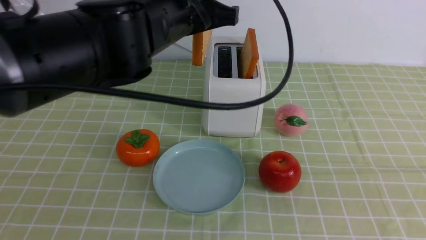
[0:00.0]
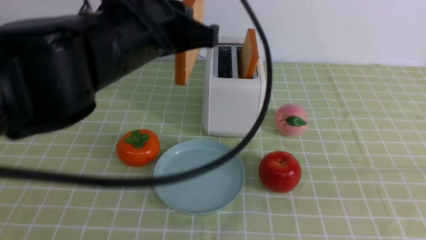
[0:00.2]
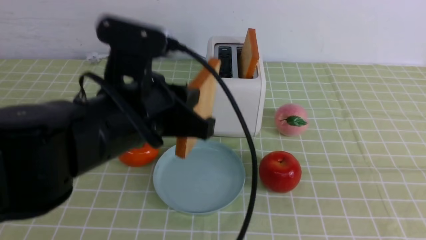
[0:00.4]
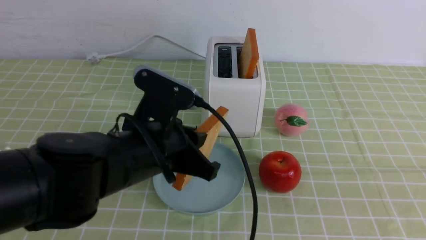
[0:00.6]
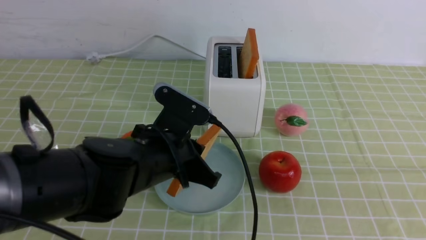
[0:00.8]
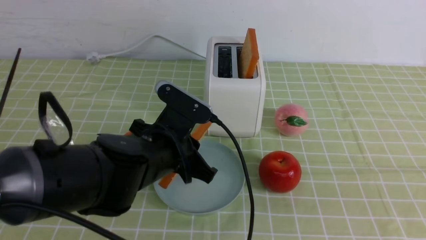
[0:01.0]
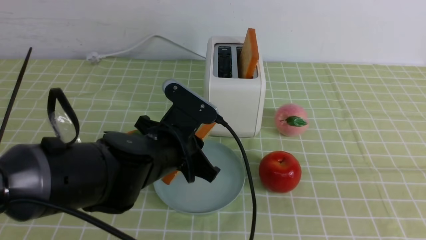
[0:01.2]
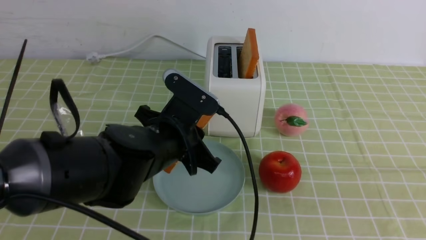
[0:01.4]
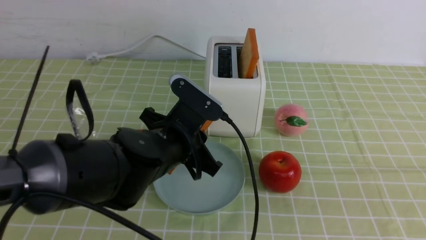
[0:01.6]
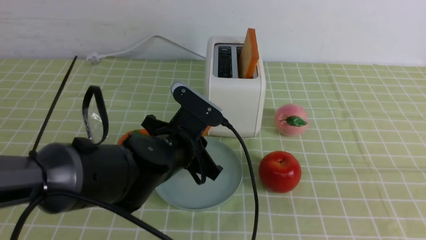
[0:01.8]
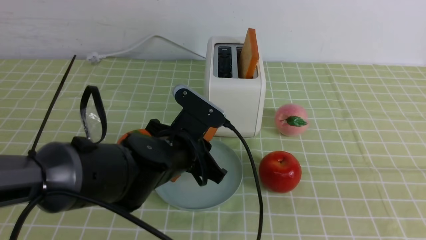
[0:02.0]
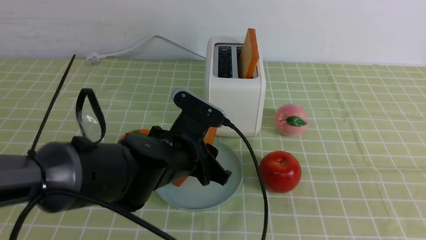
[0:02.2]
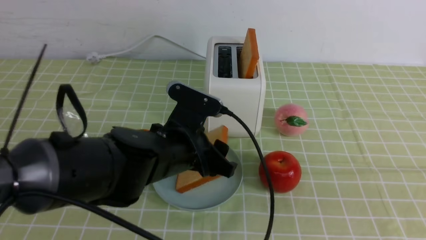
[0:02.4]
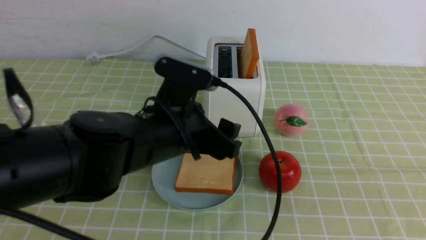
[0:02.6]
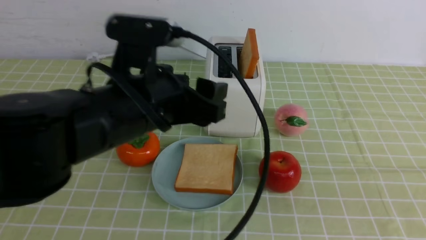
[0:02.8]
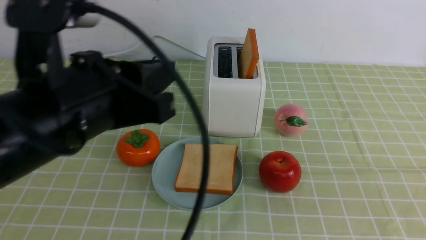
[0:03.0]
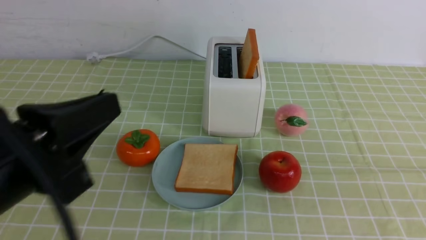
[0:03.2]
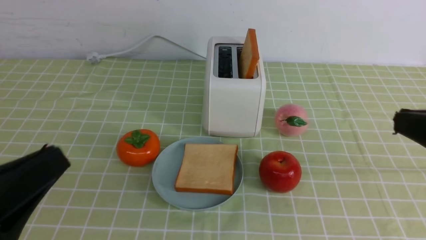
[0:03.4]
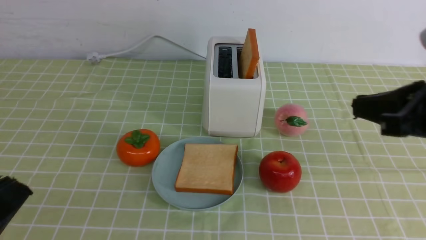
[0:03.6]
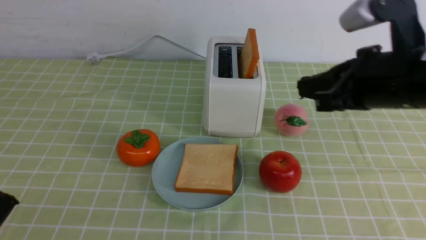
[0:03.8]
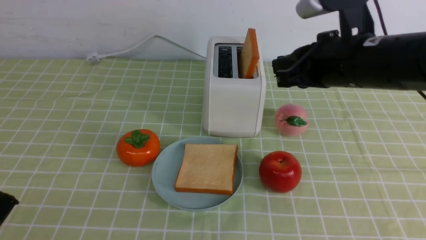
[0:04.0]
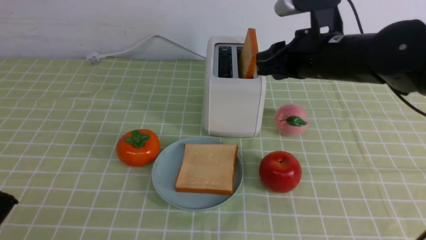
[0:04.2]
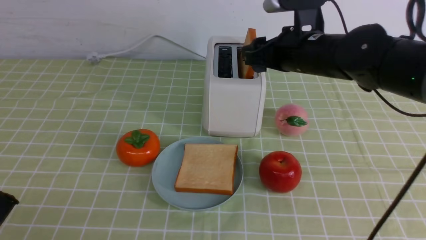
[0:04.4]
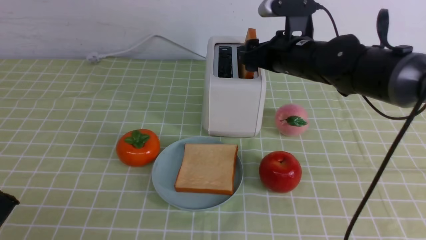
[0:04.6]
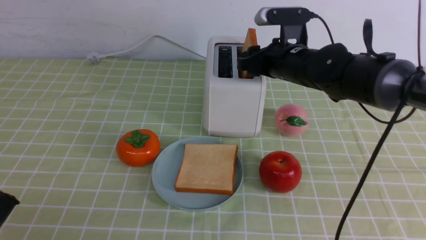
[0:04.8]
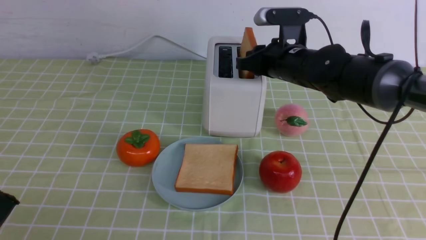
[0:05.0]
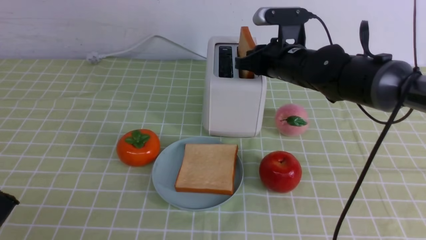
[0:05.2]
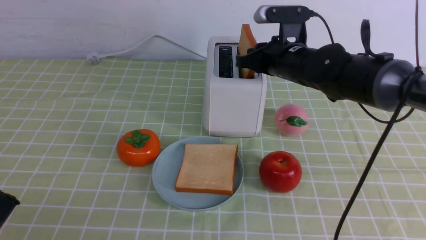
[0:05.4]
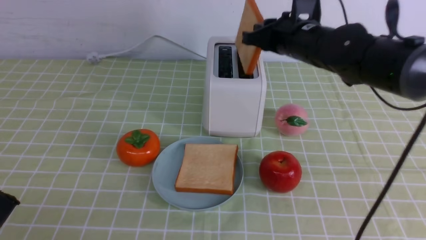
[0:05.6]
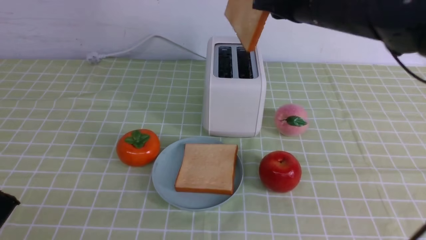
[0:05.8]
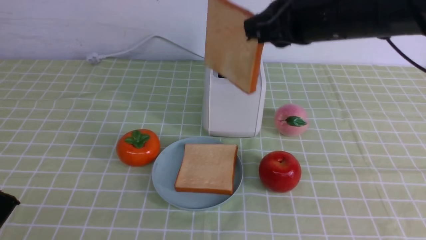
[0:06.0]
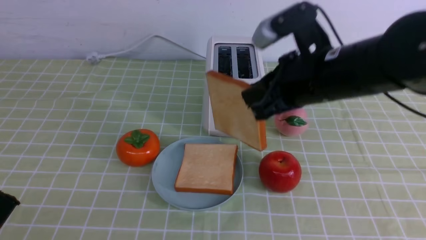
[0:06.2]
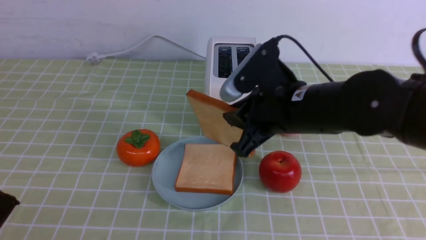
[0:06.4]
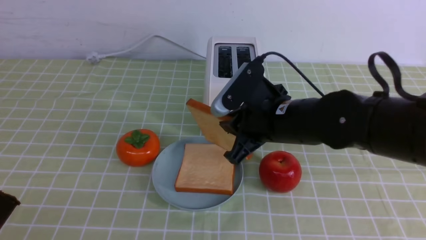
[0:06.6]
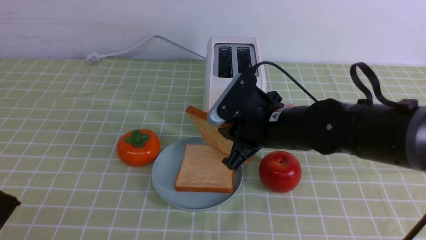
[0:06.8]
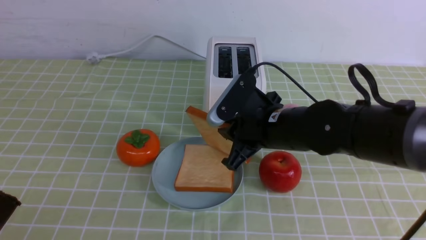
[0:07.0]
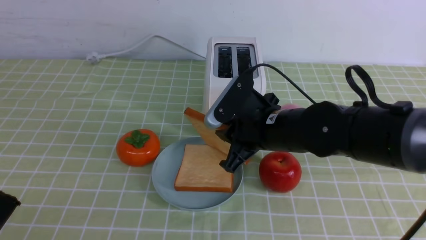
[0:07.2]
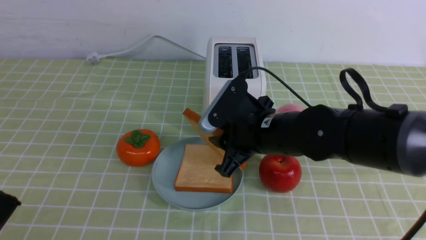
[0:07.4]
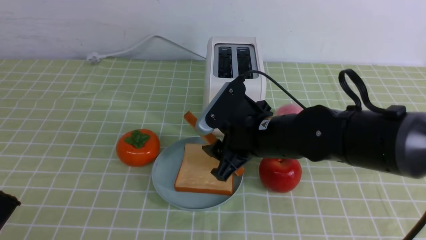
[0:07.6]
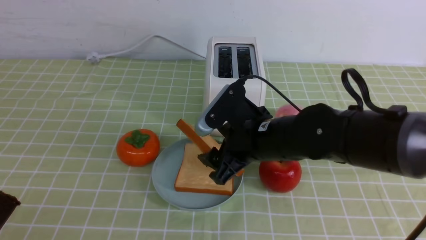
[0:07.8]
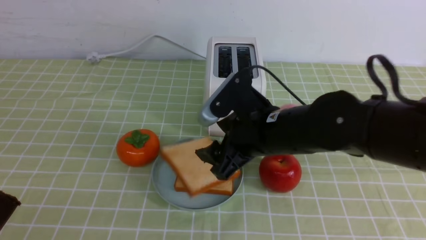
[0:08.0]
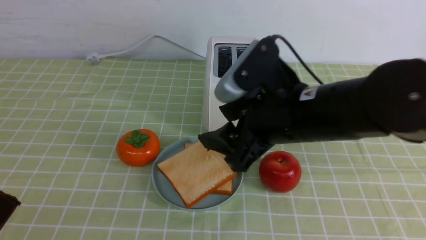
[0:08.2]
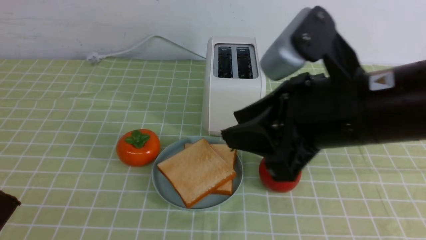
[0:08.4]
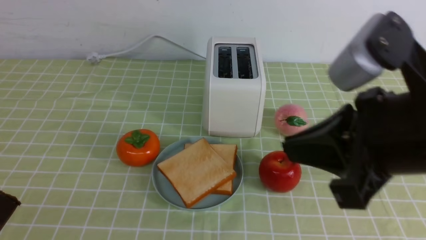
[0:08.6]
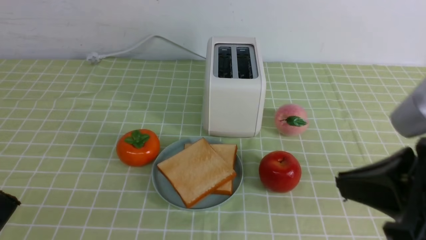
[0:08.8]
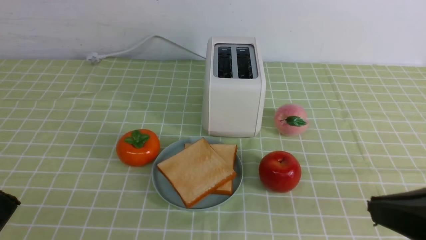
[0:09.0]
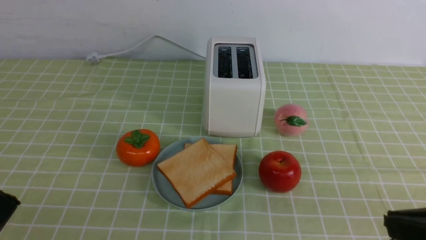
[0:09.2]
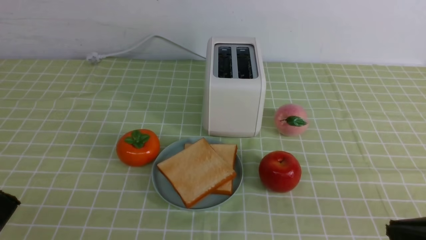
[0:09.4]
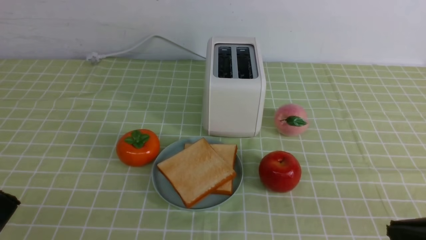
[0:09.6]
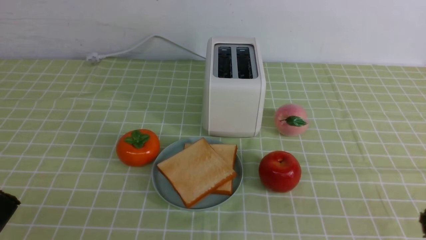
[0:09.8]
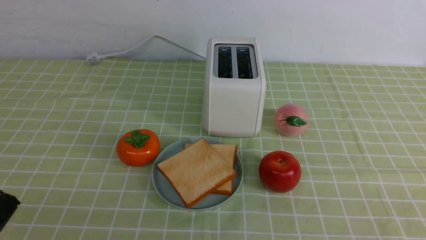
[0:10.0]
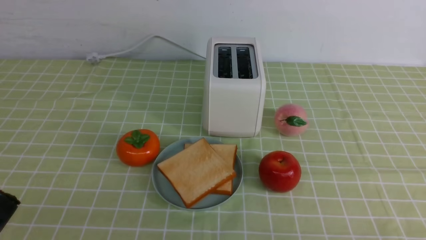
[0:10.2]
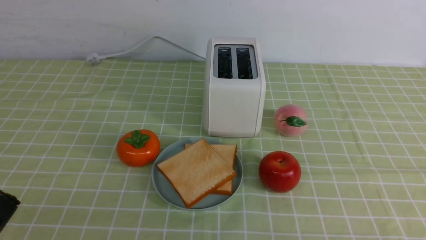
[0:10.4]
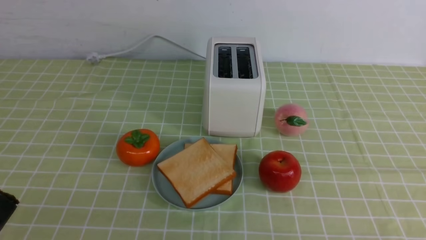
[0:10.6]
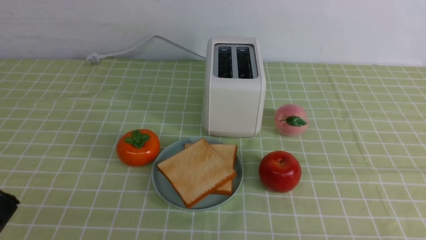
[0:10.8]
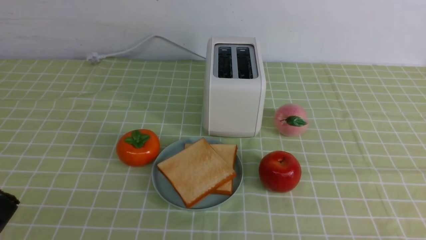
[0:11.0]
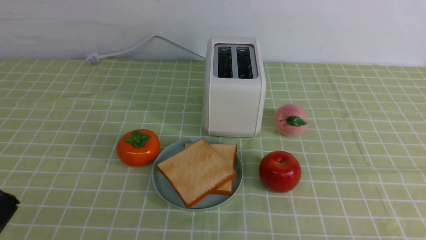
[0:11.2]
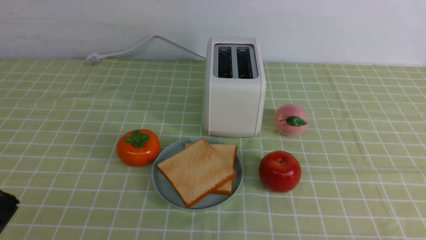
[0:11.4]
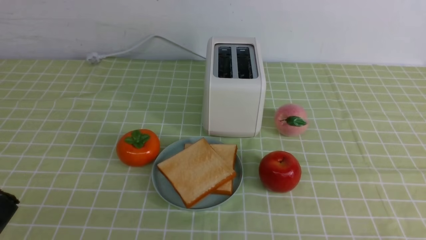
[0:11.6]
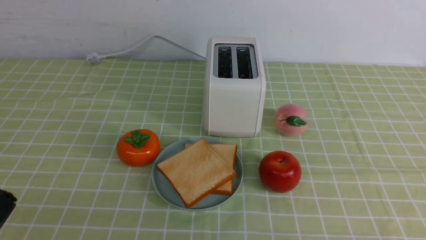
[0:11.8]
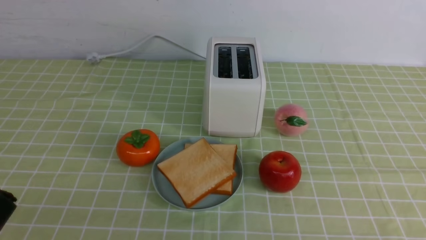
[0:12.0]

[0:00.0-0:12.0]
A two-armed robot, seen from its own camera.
Task of the whole recording: take toasted bread from bread machine on green coffee tablecloth place on plate.
Step, 0:00.8 to 0:03.0: use the left arm to put a slice of bread into the empty plate.
Step, 0:03.2 to 0:06.6: use the right arm to take out a slice of bread.
Step, 0:06.8 to 0:08.8: use the right arm to put a slice of bread into the plate.
0:00.0 to 0:01.6: The left gripper is displaced downward by some 15 cm.
0:01.6 to 0:03.0: The left gripper goes approximately 20 cm upward, backward and to the left, and opens and closes again.
0:03.0 to 0:04.4: The right gripper shifts about 35 cm forward and to the left, and opens, while the left gripper heads backward, to the left and downward, covering about 20 cm, and closes its fingers.
0:04.4 to 0:06.0: The right gripper goes approximately 10 cm backward and upward, and closes up.
0:06.0 to 0:07.6: The right gripper moves downward and to the left, approximately 15 cm, and opens.
0:07.6 to 0:09.0: The right gripper travels backward, to the right and upward by approximately 30 cm, and closes up.
0:09.0 to 0:10.4: The right gripper is displaced downward and to the right by approximately 20 cm.

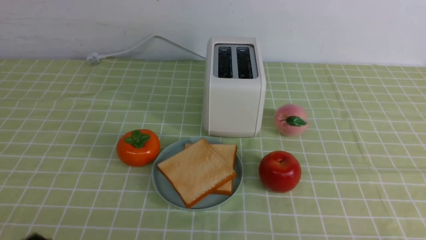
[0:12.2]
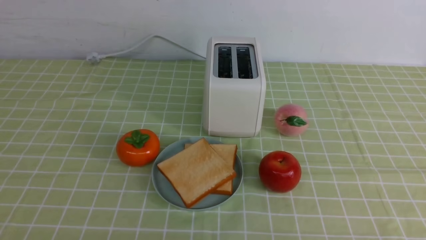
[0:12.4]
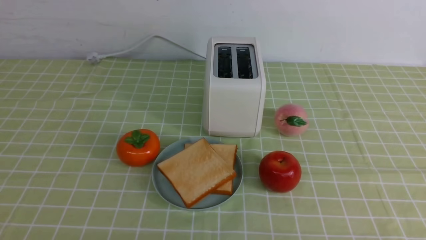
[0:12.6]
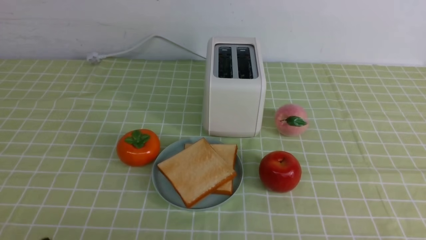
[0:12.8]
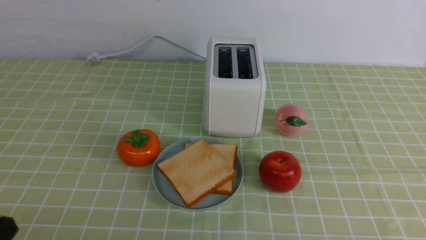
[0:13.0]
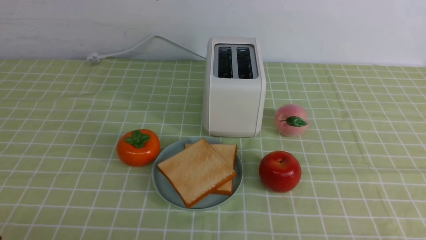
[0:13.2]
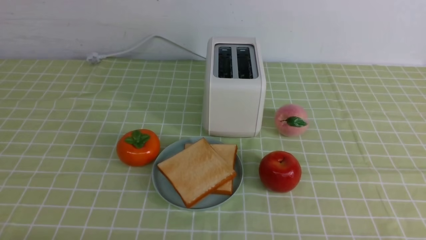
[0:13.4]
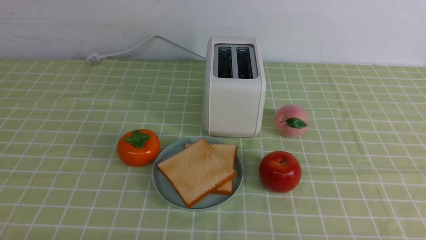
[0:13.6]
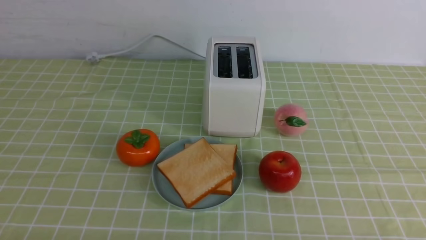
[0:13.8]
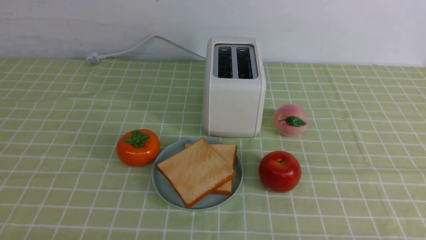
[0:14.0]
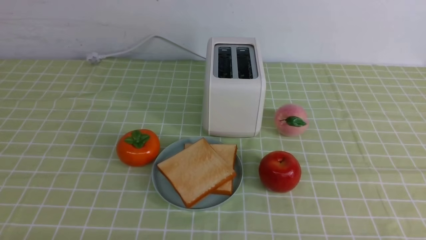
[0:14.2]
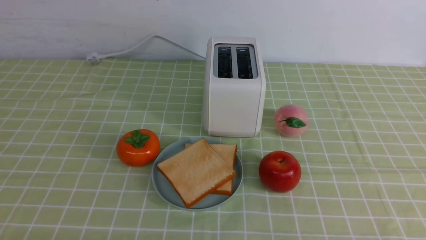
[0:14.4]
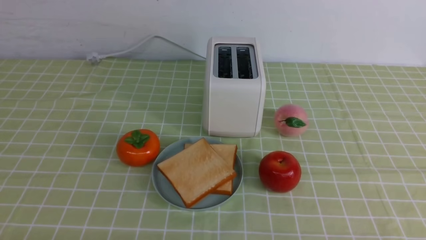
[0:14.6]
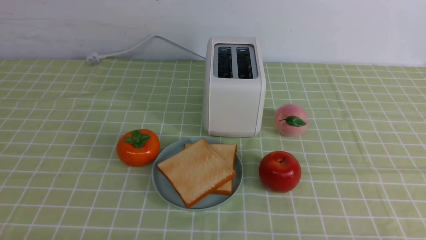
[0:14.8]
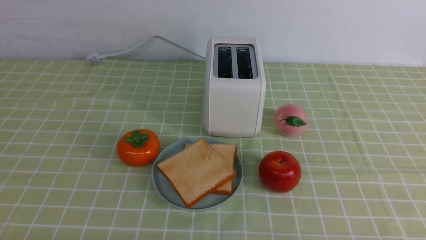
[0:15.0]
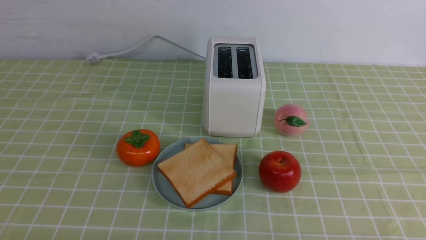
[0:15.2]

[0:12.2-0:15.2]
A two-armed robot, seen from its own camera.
Task of the whole recording: take toasted bread from bread machine on green coffee tablecloth place on plate.
0:13.8 to 0:15.2: Both grippers stay put.
